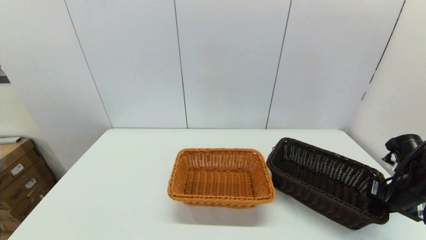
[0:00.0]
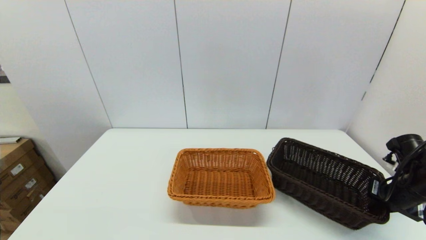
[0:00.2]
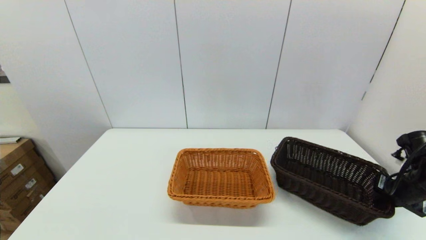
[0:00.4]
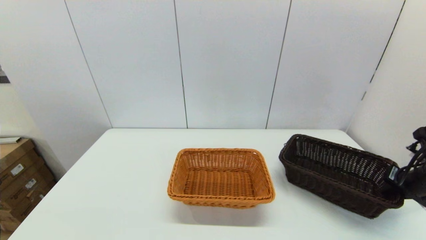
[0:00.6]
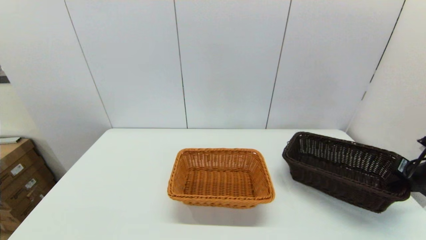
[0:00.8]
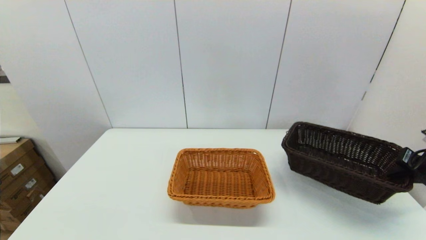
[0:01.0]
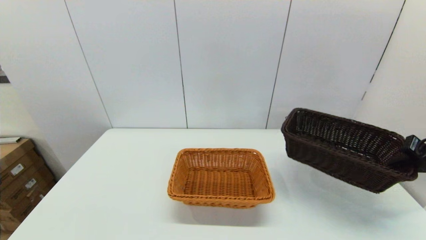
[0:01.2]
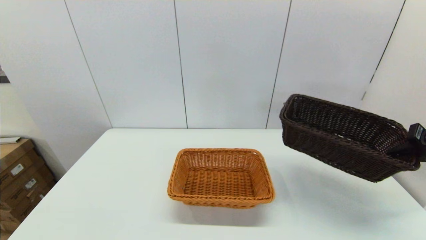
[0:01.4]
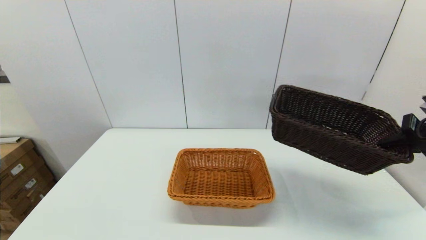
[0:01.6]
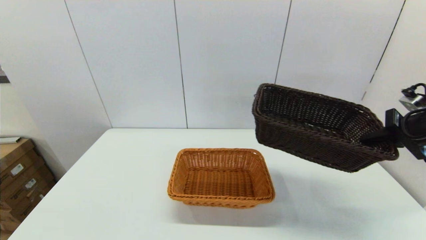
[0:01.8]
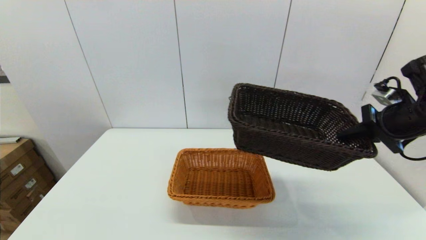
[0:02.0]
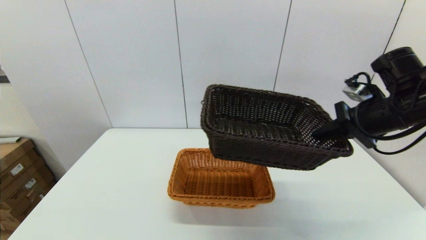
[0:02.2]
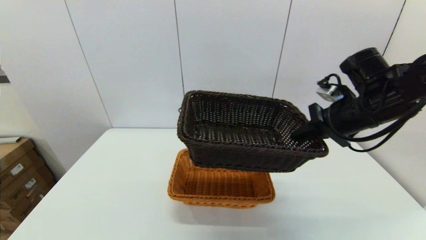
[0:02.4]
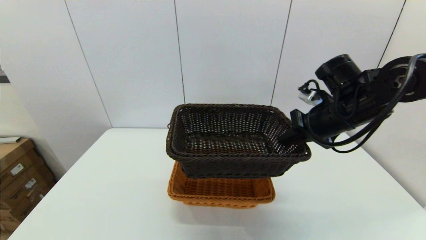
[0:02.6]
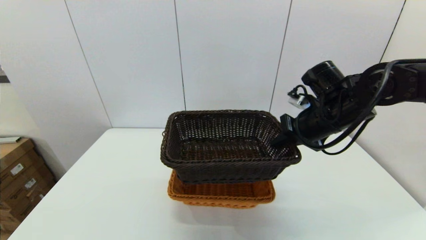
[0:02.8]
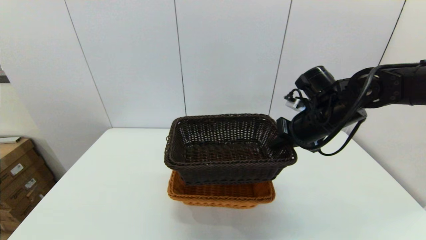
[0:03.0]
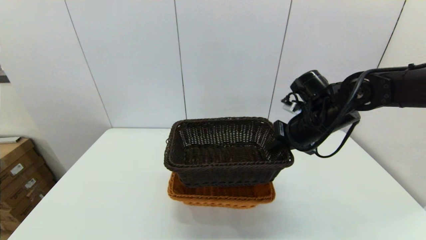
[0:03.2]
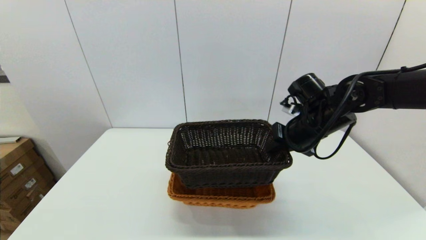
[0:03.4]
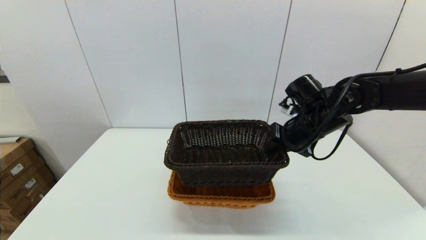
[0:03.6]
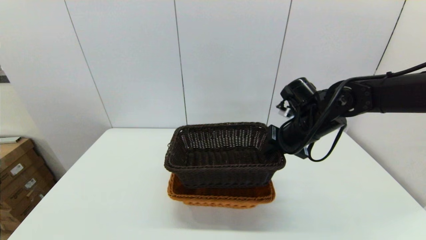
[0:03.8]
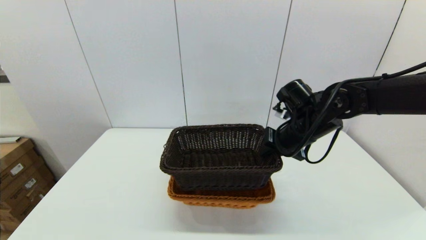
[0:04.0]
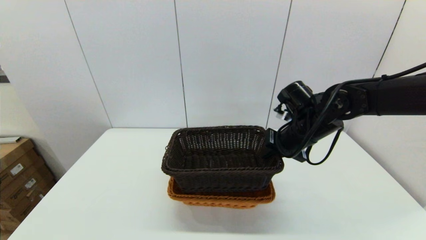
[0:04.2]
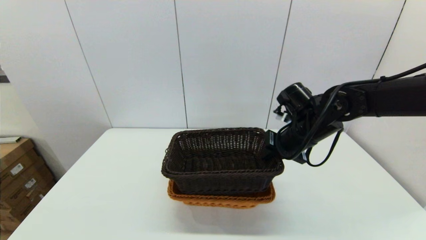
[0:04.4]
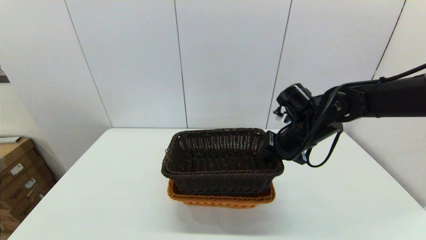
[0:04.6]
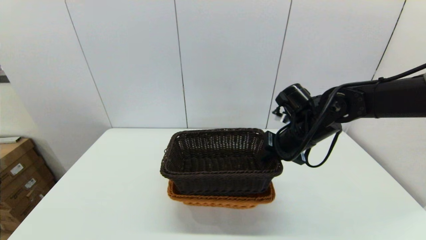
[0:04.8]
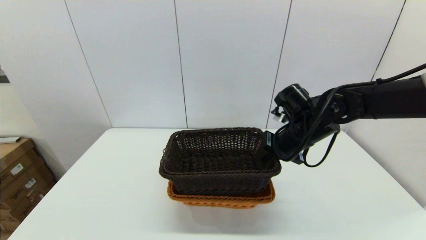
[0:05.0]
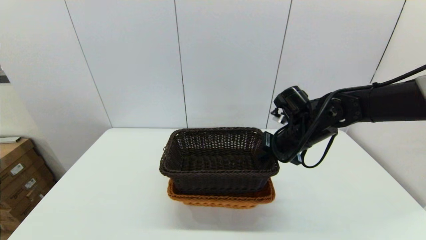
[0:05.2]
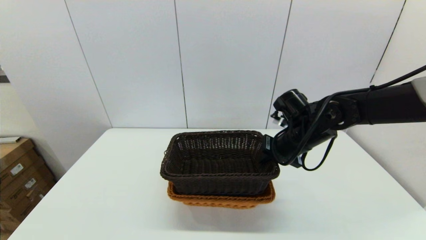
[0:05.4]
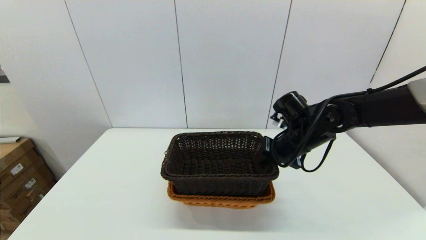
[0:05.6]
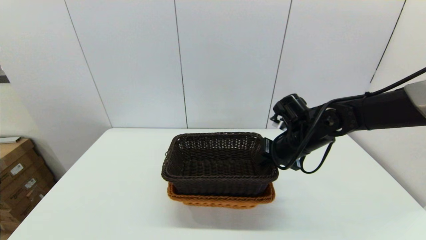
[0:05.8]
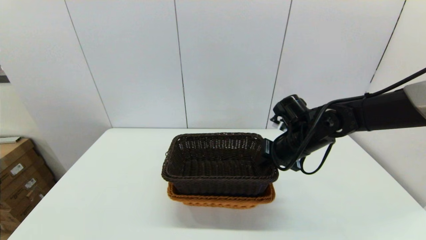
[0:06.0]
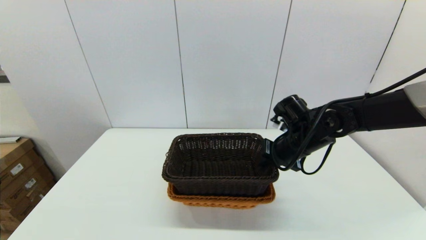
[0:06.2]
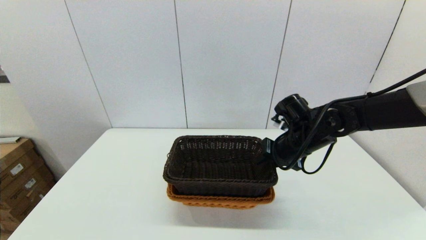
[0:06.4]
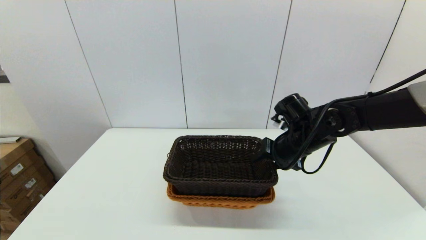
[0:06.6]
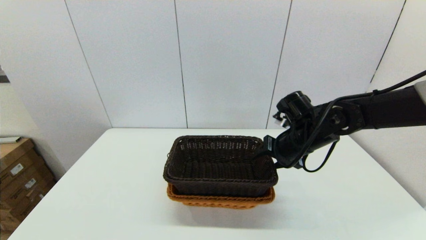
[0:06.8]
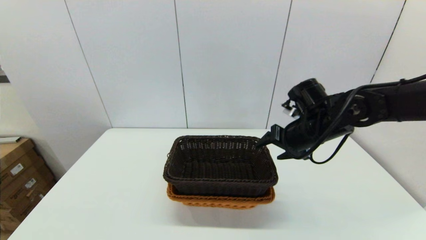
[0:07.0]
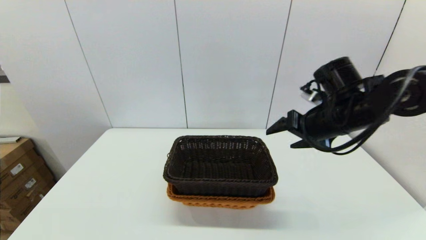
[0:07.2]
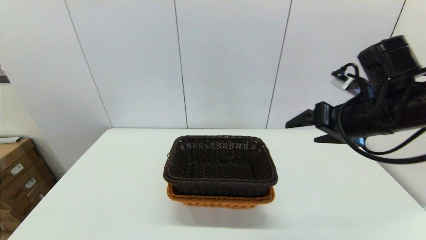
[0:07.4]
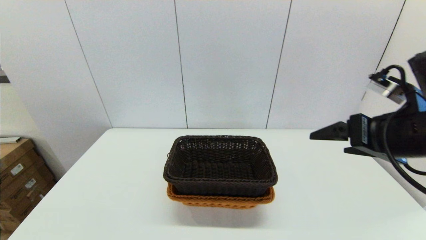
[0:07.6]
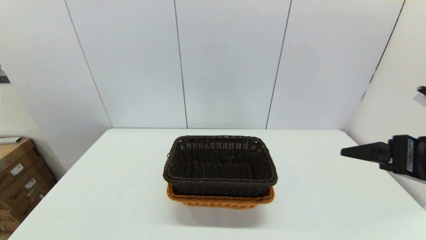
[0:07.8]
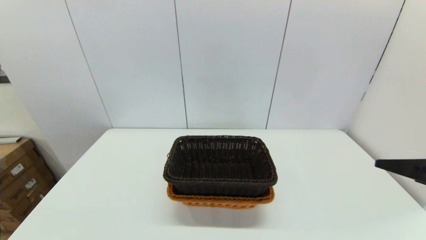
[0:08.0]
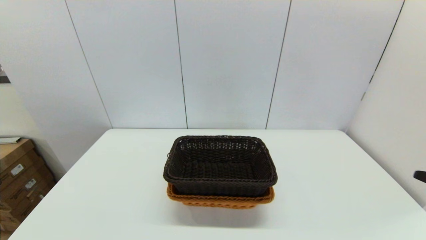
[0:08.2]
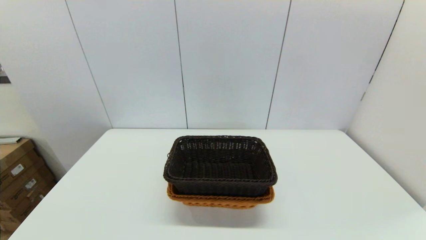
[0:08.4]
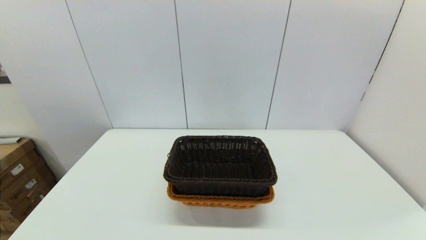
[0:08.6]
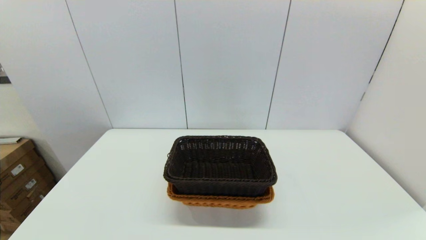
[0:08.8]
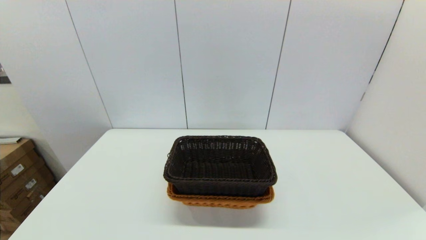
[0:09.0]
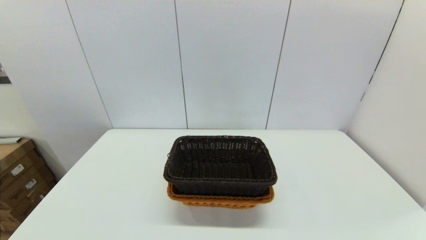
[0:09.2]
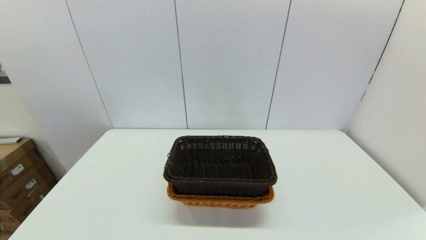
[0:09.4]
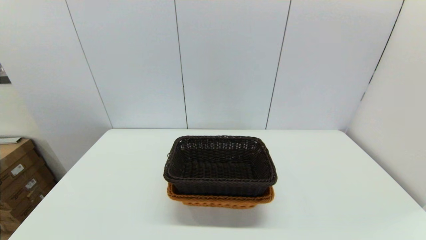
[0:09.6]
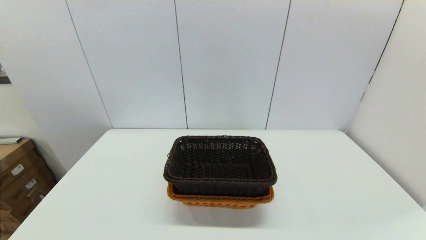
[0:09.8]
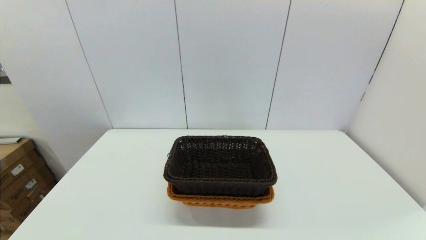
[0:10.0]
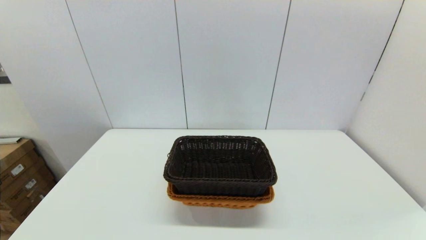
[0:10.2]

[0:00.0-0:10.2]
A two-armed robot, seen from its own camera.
Task of the whole recording: stack a basket on top of another basket.
Step, 0:00.0 to 0:07.0: Place the dark basket into the light color basket with the right gripper.
0:00.0 to 0:01.4: The right gripper travels upward and to the right by approximately 15 cm.
0:01.4 to 0:03.0: The right gripper moves to the left, some 25 cm.
0:03.0 to 0:04.4: The grippers move only a little.
0:04.4 to 0:05.8: There are only small adjustments of the grippers.
0:05.8 to 0:07.2: The right gripper goes some 10 cm upward, and opens.
0:07.2 to 0:08.8: The right gripper heads backward, covering roughly 30 cm.

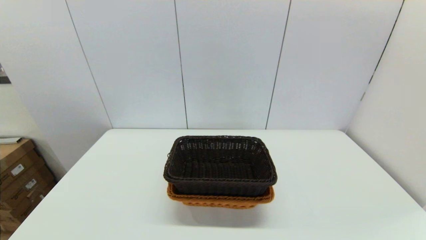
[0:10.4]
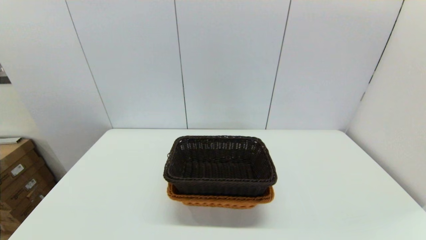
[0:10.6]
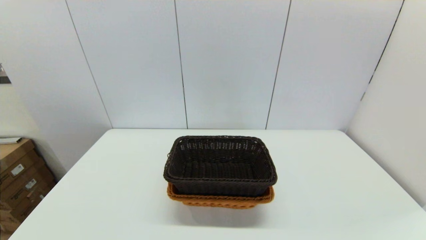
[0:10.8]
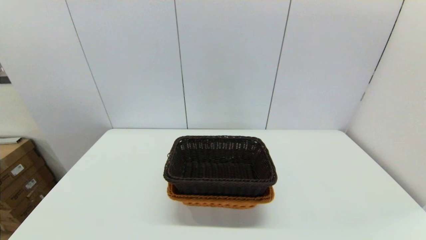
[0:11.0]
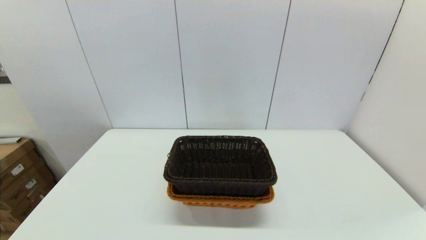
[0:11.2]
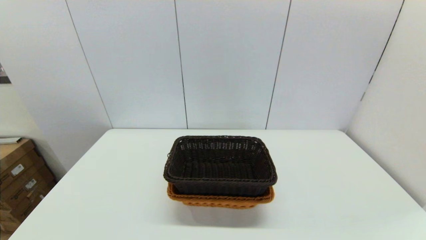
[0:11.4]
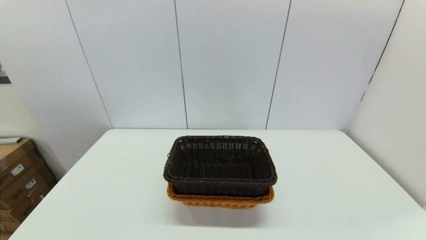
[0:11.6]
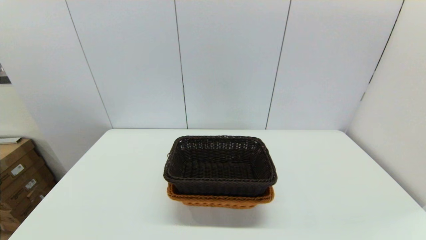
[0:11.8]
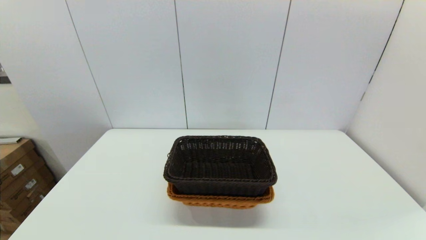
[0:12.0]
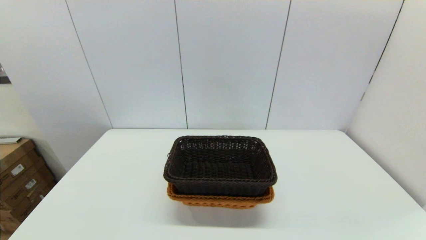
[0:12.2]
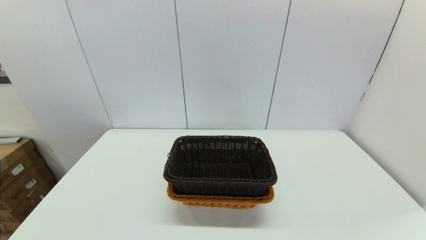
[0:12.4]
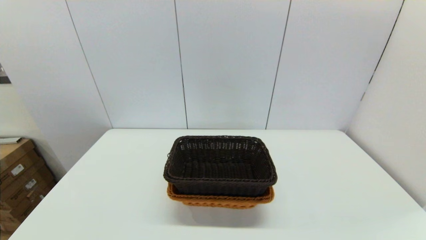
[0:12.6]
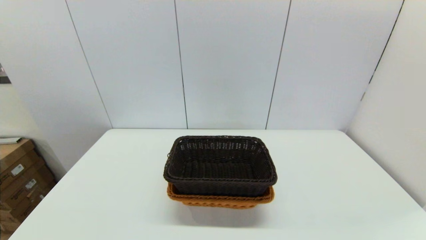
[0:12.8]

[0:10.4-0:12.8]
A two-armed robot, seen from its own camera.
Task of the whole recording: stack a basket on top of another basket.
0:11.6 to 0:12.8: Both grippers stay put.

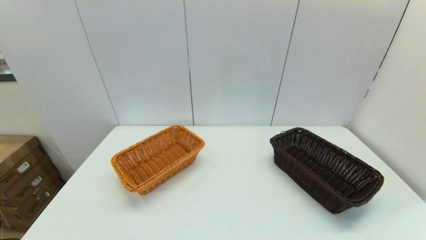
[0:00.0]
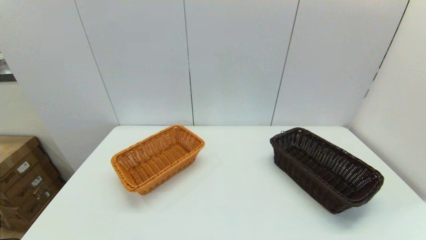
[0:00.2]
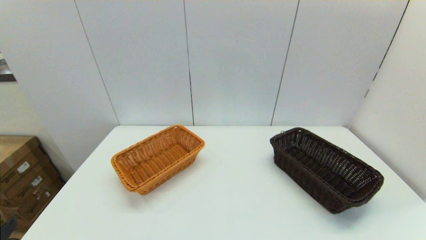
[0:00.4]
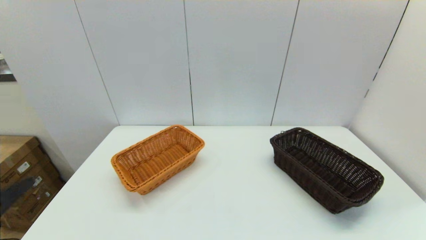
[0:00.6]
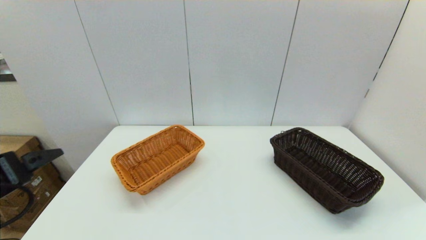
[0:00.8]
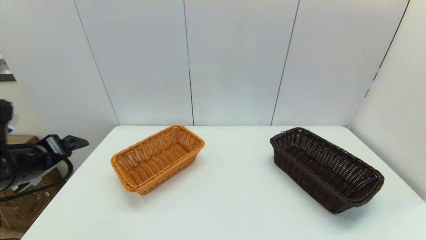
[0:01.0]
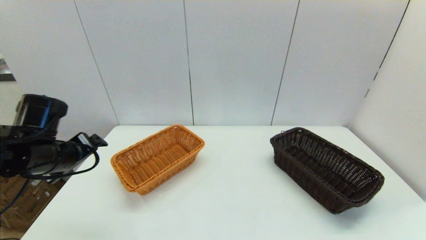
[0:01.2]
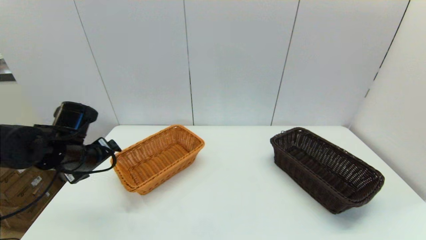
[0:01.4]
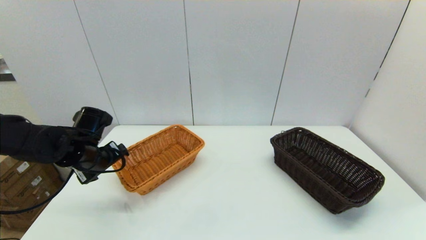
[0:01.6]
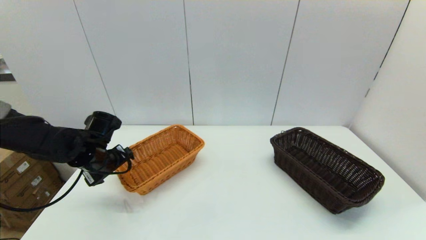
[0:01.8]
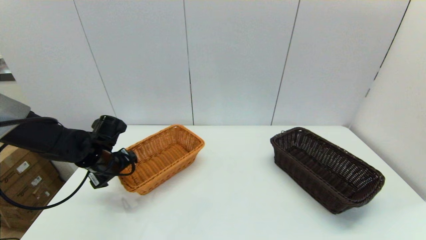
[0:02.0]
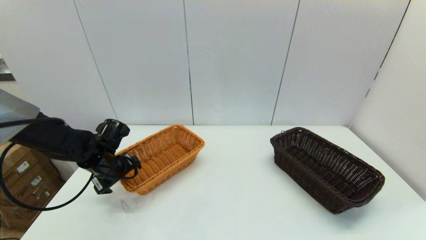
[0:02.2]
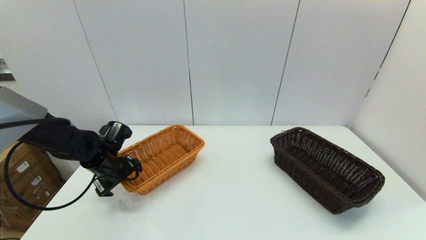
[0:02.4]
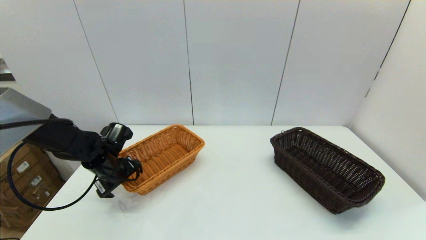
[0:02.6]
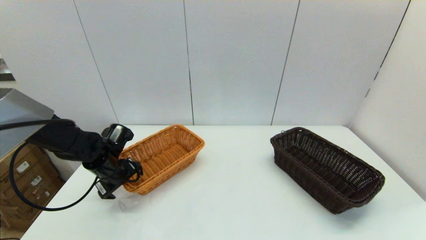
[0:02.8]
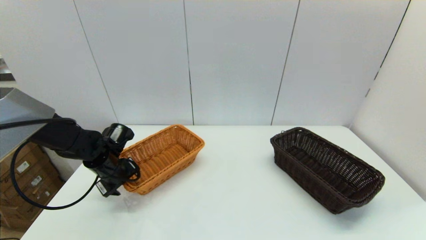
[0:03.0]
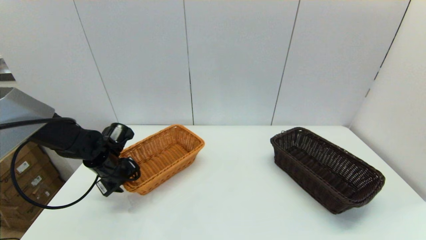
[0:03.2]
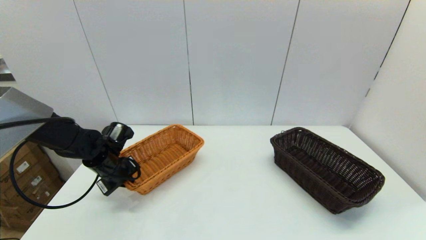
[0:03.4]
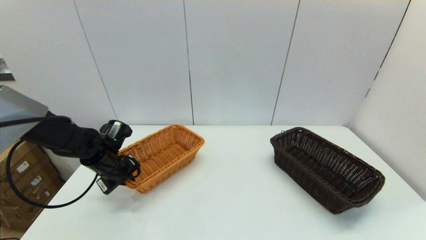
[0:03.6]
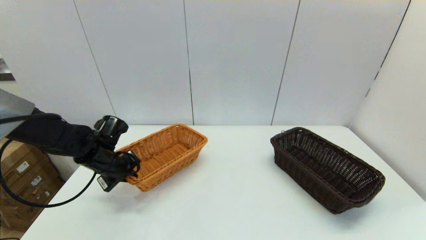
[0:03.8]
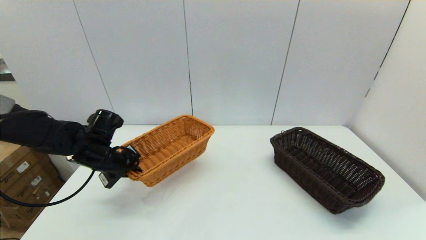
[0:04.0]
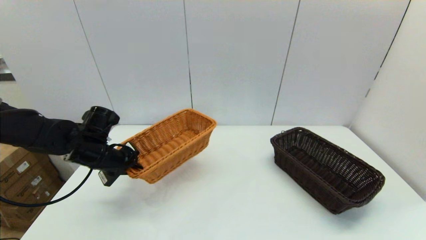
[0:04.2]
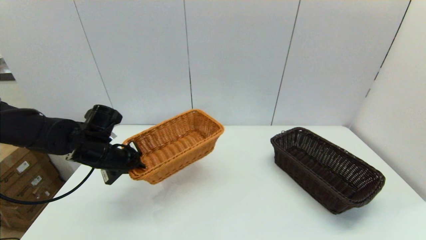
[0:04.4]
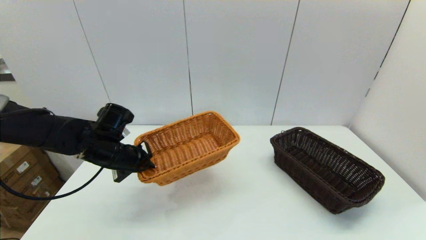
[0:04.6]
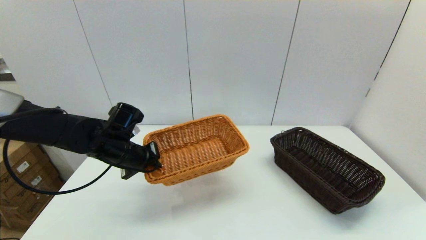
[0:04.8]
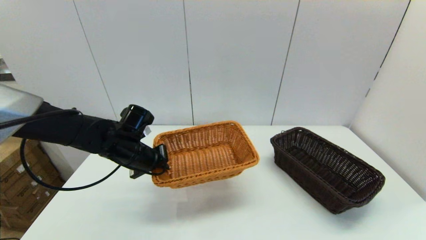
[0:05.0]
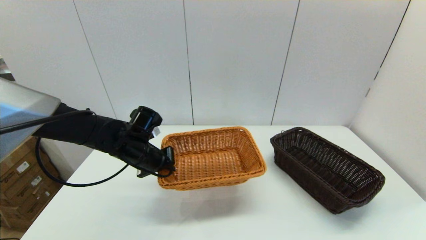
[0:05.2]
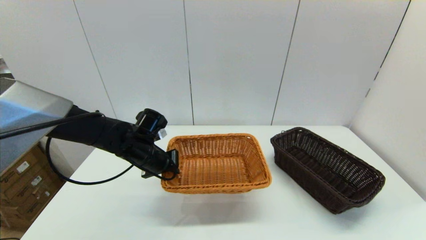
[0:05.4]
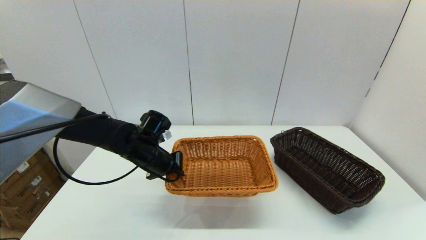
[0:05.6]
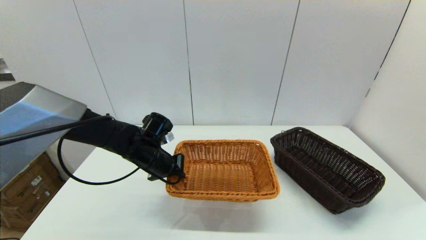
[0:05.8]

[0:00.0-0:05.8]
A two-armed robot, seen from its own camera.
Task of the whole recording: stack a basket on top of another basket.
Step, 0:00.0 to 0:03.4: Grasp the light basket with the left gripper.
0:00.0 to 0:01.4: The left gripper heads forward, covering about 30 cm.
0:01.4 to 0:02.8: The left gripper shifts roughly 10 cm downward.
0:02.8 to 0:04.4: The left gripper is displaced upward by some 5 cm, and closes.
0:04.4 to 0:05.8: The left gripper travels to the right by about 10 cm.
